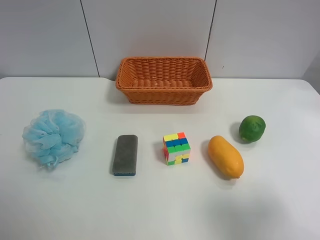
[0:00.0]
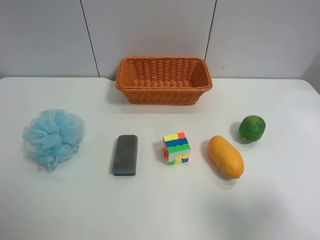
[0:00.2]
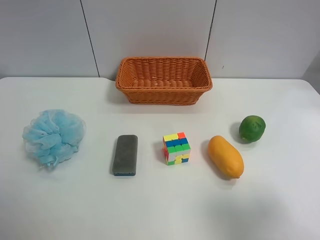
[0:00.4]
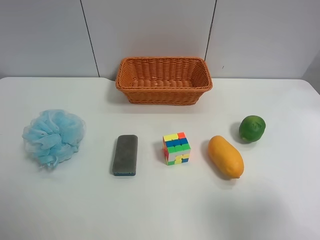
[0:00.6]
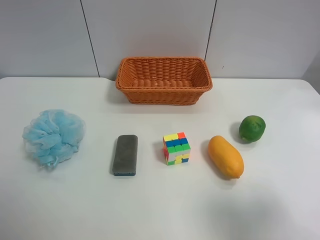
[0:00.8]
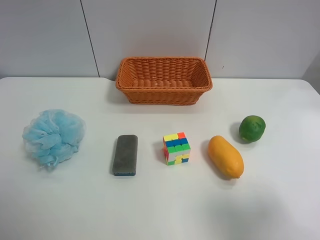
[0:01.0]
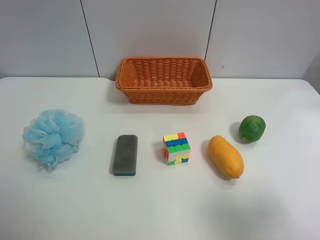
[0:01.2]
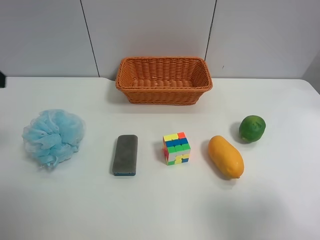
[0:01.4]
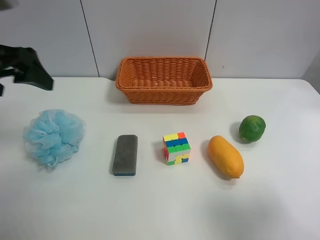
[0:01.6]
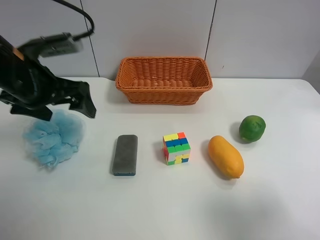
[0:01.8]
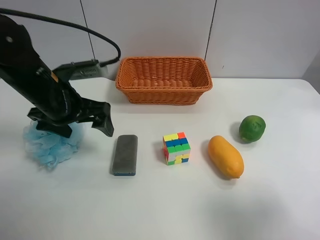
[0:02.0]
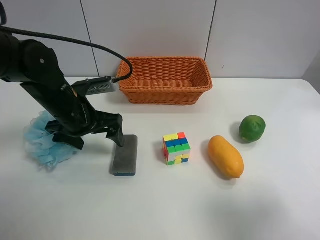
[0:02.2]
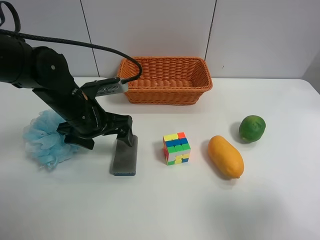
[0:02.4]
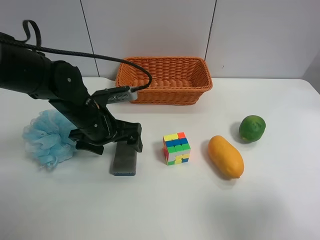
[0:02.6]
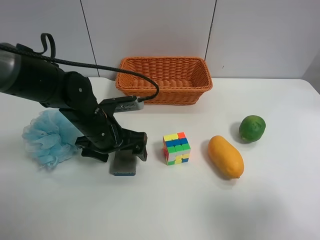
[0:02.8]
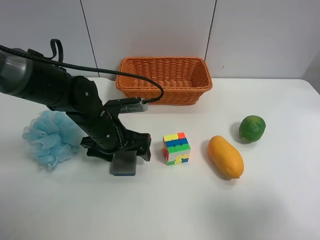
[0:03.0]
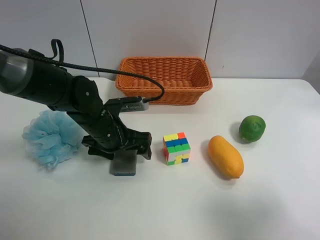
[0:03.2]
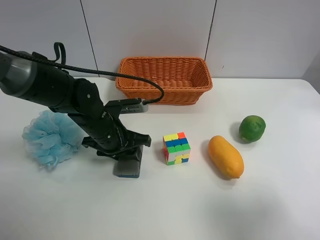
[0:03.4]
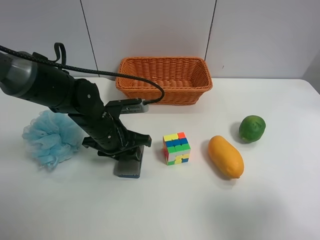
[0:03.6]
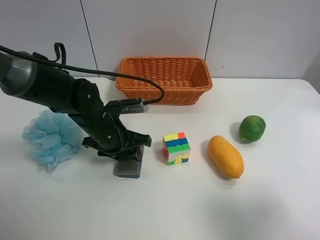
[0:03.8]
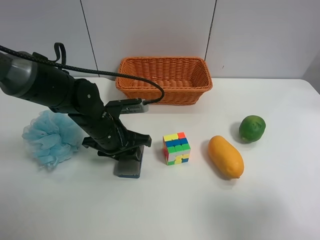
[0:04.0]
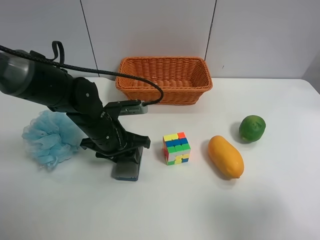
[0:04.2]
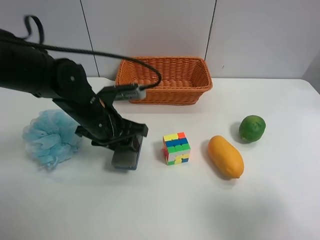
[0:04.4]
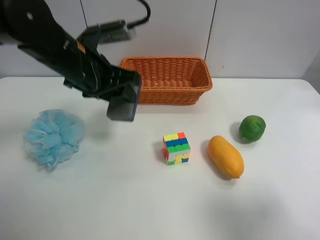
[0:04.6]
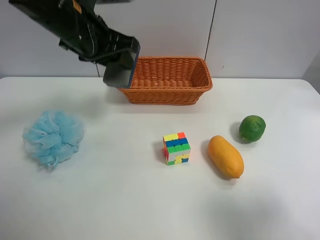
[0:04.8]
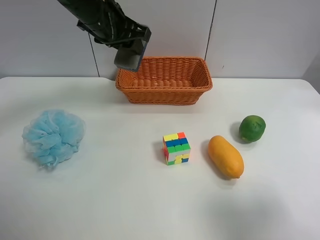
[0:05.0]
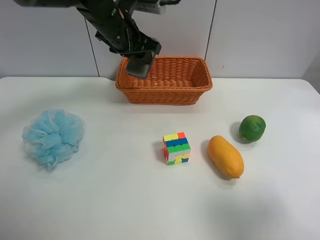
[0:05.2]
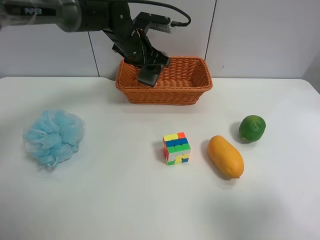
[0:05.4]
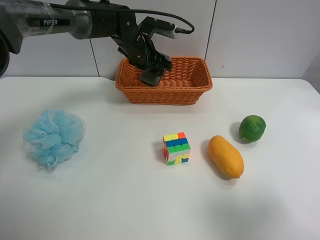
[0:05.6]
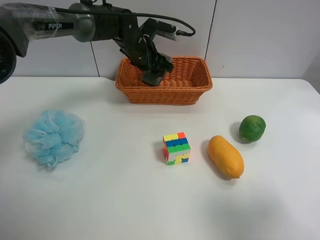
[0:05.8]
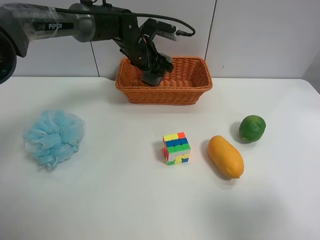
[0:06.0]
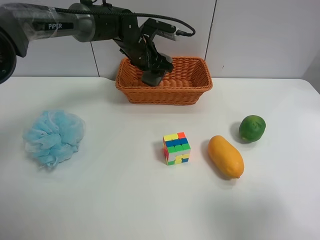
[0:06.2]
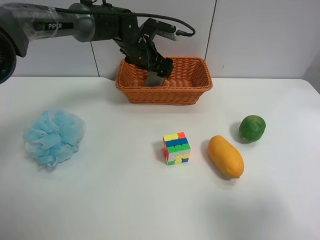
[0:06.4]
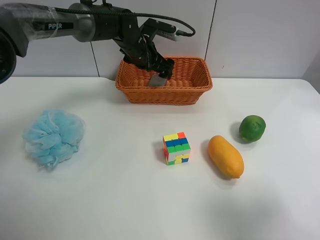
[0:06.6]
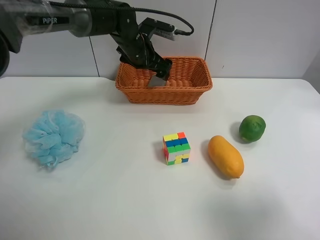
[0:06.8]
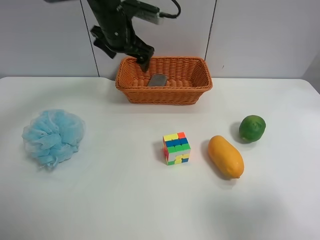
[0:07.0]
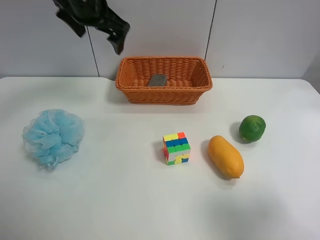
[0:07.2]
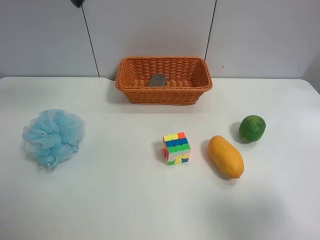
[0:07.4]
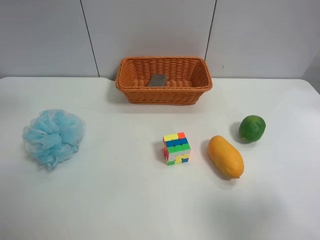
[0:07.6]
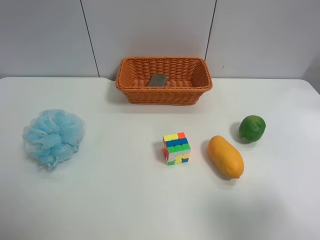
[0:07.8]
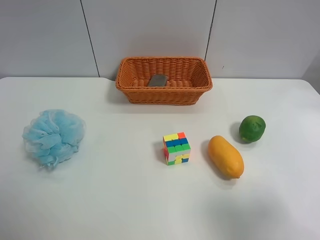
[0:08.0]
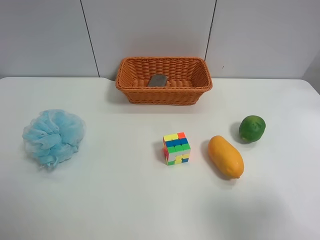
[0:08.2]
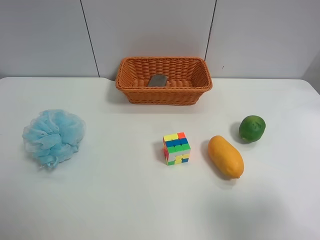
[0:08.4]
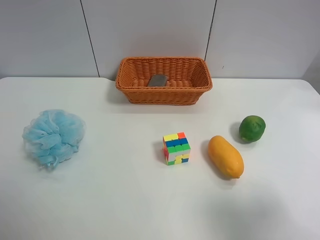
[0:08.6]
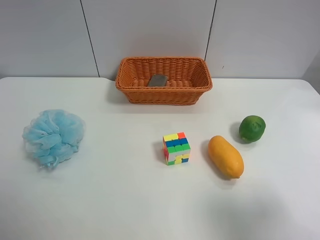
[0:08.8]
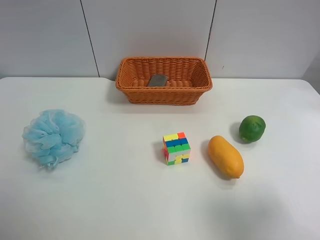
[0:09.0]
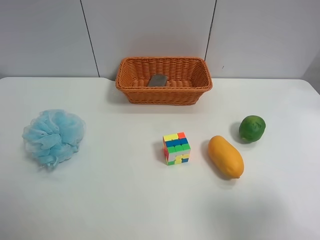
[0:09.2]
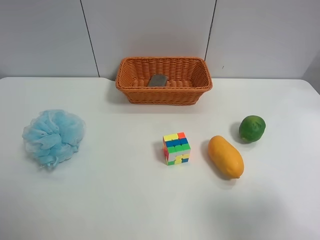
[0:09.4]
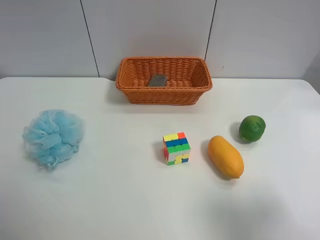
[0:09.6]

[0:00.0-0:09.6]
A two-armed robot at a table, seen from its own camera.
Task of the whole recording: use the left gripper to grab items from the table and place them in the basket.
Step, 0:00.0 to 0:03.6: Grasp the chalkboard eraser with the left gripper.
Step, 0:03.8 to 0:06.6: Place the chalkboard eraser into the basket with the left gripper.
0:00.0 to 0:01.6: The left gripper travels forward by approximately 25 cm.
0:01.6 to 0:03.2: The left gripper moves downward and to the right, approximately 25 cm.
0:03.2 to 0:04.8: The left gripper moves upward, about 20 cm, and closes.
0:04.8 to 0:06.4: The left gripper shifts approximately 20 cm forward, downward and to the right, and opens its fingers.
0:06.4 to 0:08.0: The left gripper is displaced backward, to the left and upward by about 50 cm.

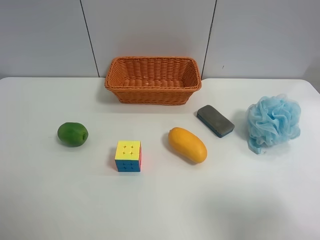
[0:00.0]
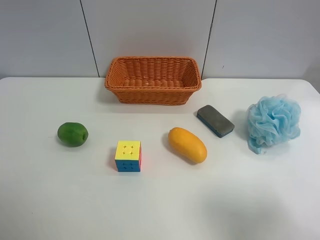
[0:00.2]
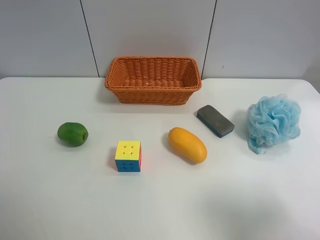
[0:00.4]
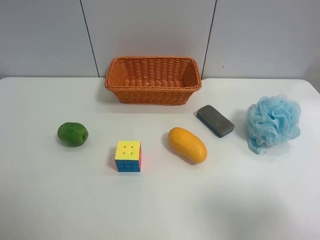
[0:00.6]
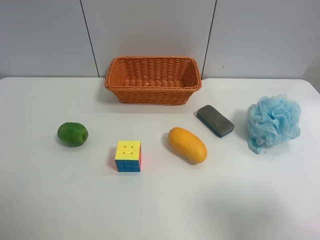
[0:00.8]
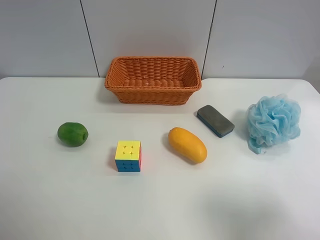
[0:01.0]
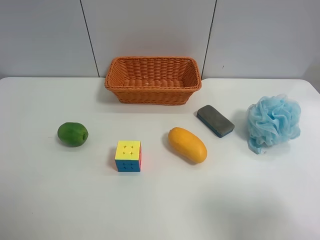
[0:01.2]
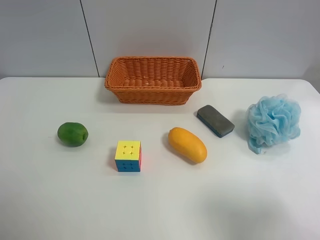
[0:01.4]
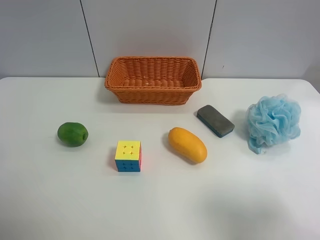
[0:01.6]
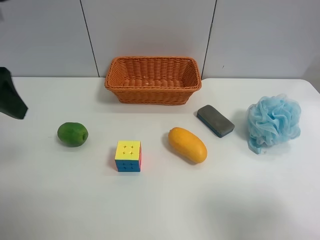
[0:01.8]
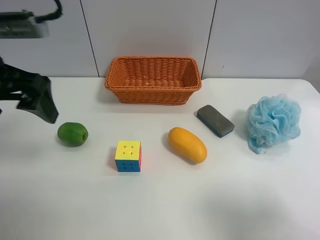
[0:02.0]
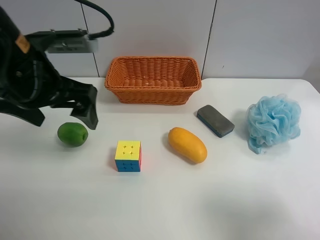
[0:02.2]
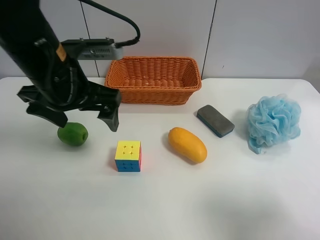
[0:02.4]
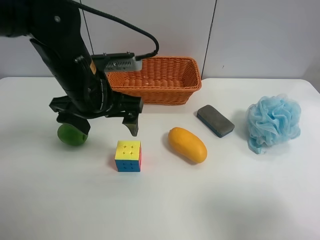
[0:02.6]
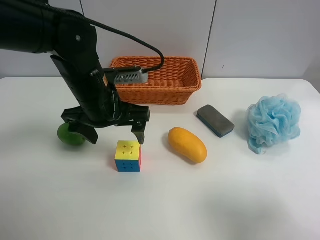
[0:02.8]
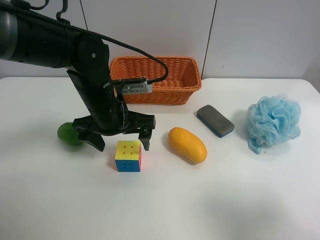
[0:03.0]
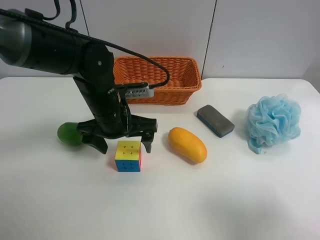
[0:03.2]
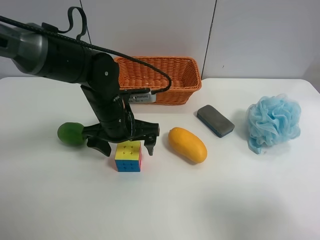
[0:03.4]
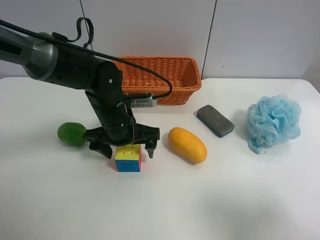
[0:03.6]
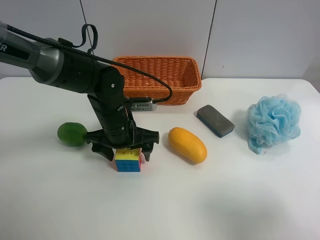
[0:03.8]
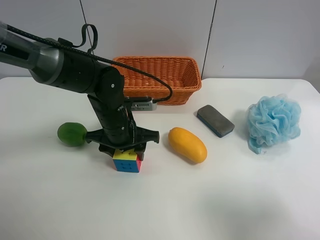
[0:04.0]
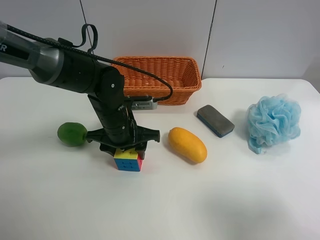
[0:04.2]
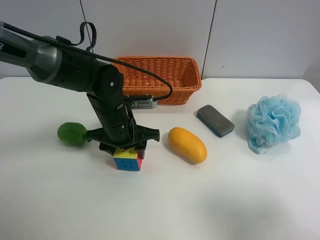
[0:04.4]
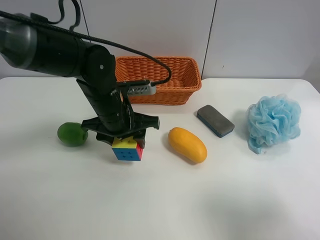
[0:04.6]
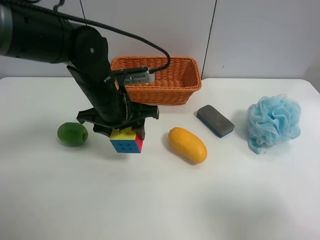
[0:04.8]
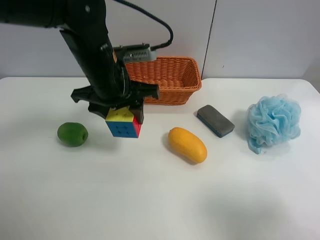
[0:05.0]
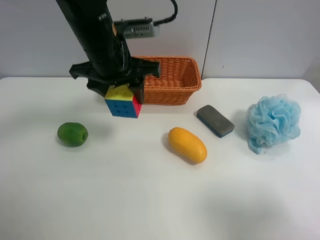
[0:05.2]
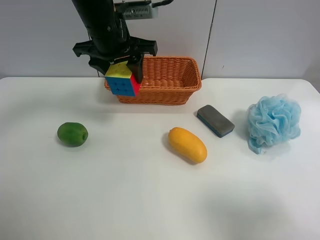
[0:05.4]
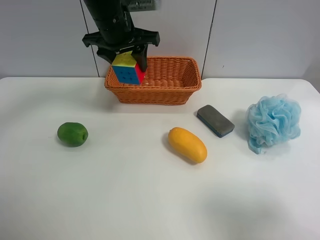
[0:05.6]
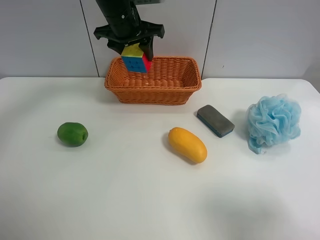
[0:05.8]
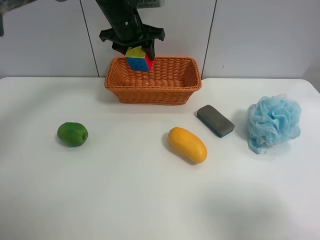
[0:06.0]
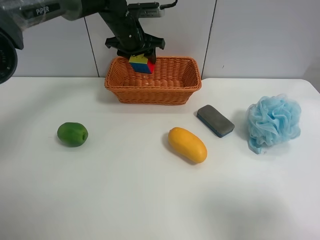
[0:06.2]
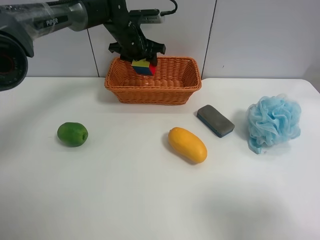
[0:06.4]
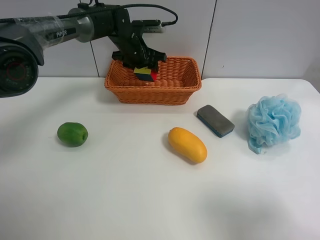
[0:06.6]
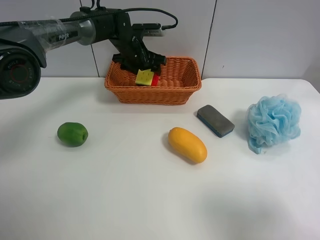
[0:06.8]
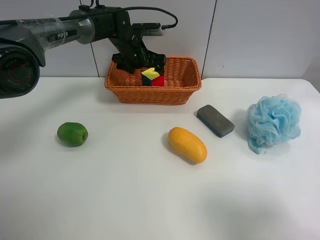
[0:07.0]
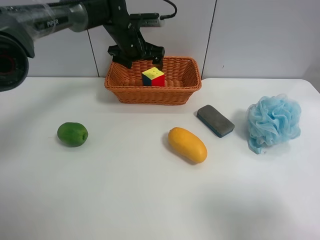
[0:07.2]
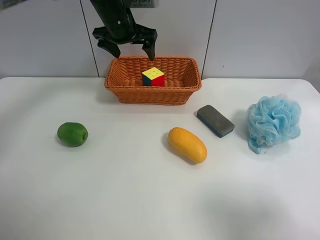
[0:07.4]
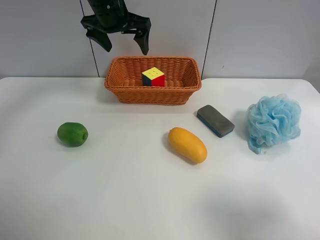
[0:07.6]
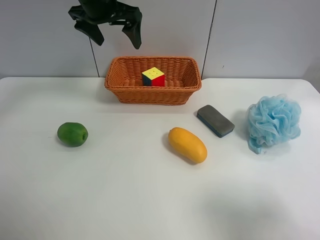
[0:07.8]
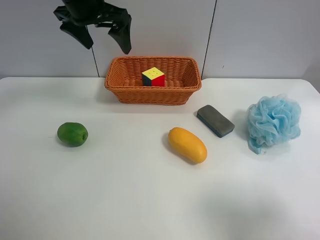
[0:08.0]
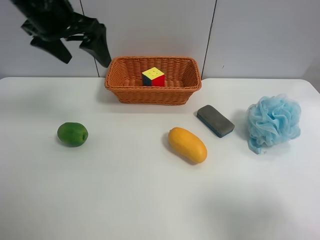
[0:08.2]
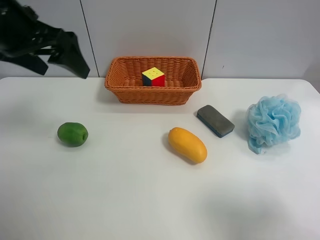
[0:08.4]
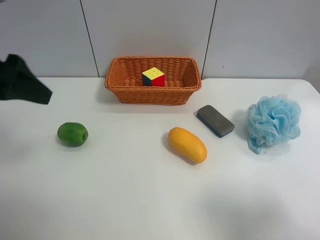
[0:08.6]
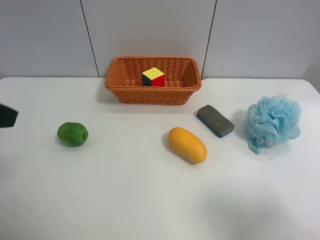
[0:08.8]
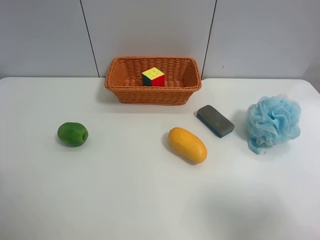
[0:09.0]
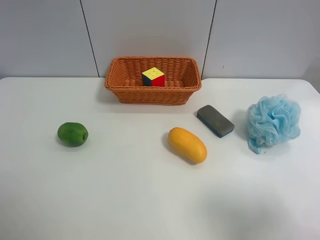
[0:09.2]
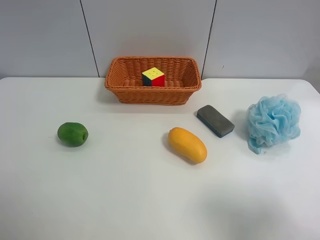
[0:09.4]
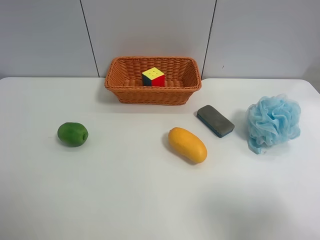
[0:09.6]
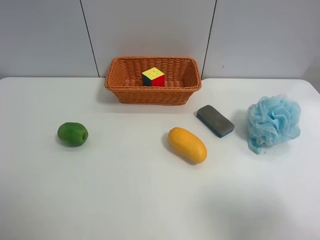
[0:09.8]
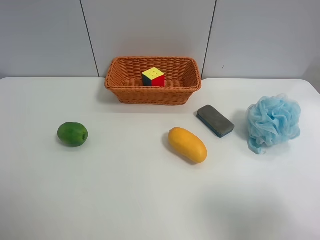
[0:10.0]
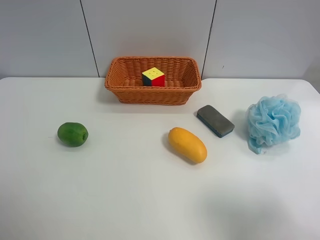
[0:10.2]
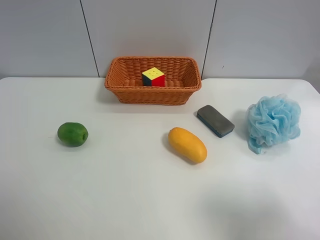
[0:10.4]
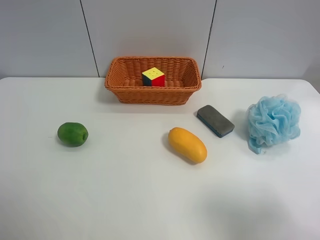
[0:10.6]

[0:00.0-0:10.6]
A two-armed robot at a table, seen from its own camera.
Task of the whole recording: use the left gripper to grab items from the table and place them in the basket.
Step, 0:00.0 to 0:04.4: Grasp the Shower puff with the left gripper.
Step, 0:04.6 to 0:07.2: Place the Rubik's Cube into the basket with the left gripper.
0:01.6 to 0:03.0: The left gripper moves to the right, downward and forward, approximately 30 cm.
0:03.0 to 0:04.6: The left gripper closes its fingers.
0:04.6 to 0:06.0: The left gripper is displaced forward and upward by about 20 cm.
0:06.0 to 0:07.6: The left gripper goes downward and returns, about 10 cm each way, and opens its fingers.
0:07.6 to 0:09.0: The left gripper travels backward and to the left by about 40 cm.
